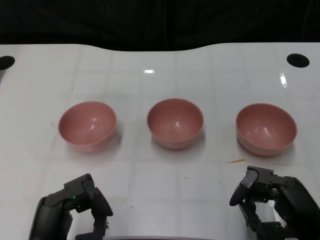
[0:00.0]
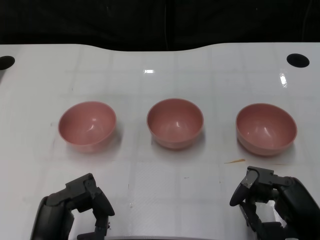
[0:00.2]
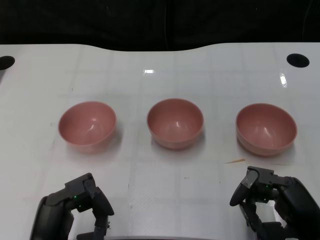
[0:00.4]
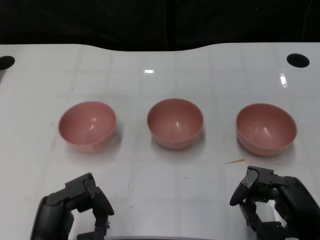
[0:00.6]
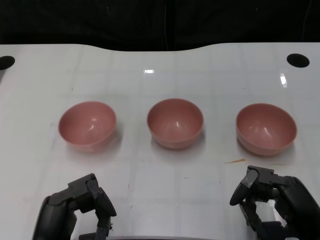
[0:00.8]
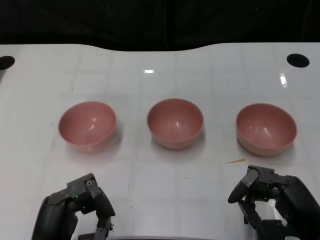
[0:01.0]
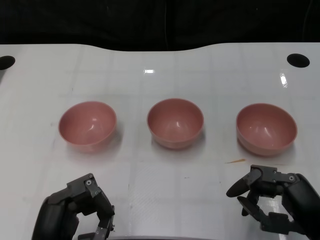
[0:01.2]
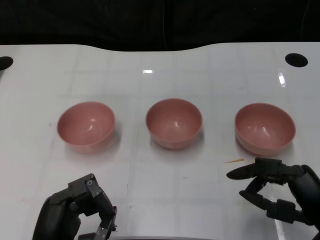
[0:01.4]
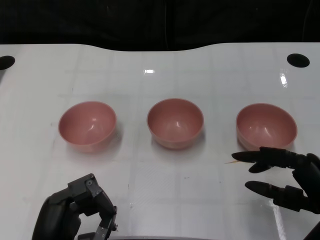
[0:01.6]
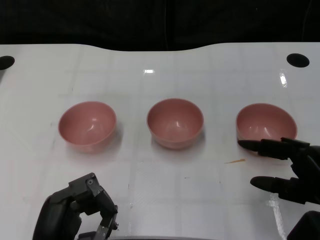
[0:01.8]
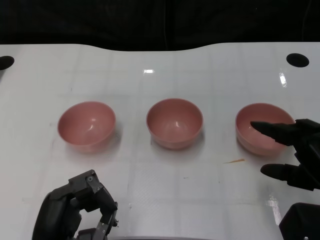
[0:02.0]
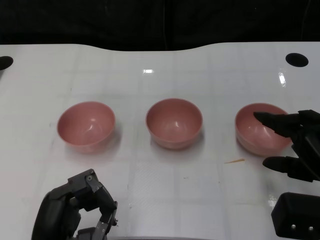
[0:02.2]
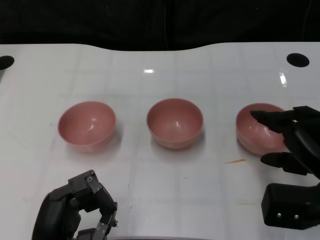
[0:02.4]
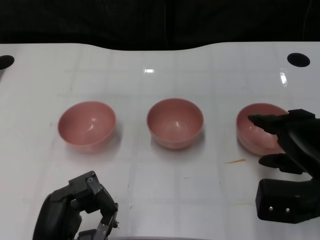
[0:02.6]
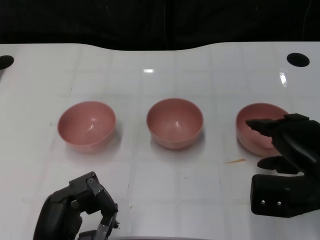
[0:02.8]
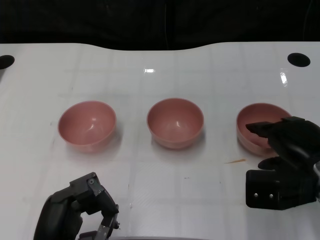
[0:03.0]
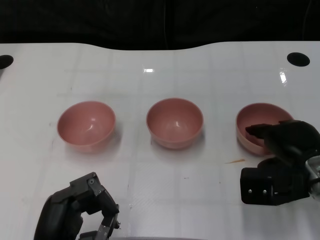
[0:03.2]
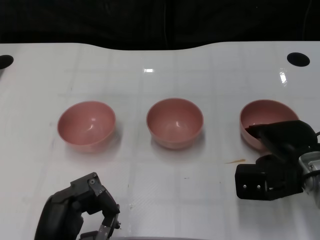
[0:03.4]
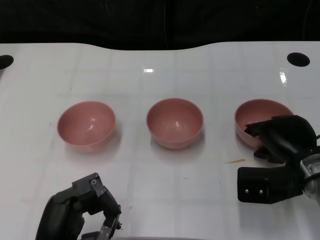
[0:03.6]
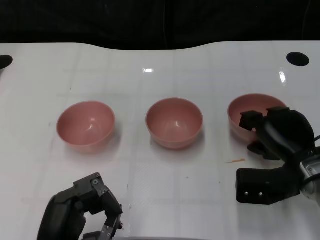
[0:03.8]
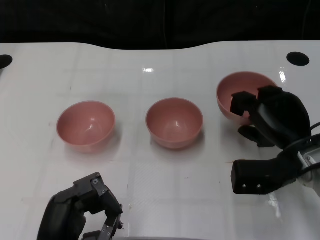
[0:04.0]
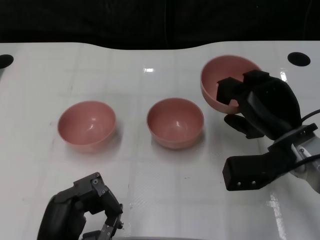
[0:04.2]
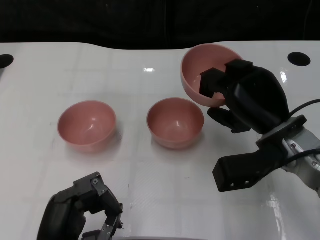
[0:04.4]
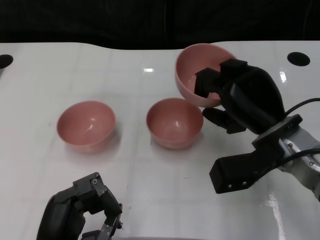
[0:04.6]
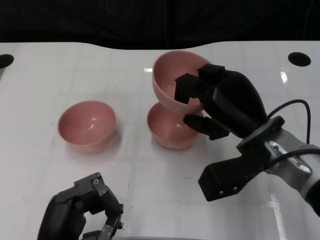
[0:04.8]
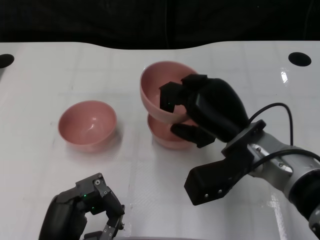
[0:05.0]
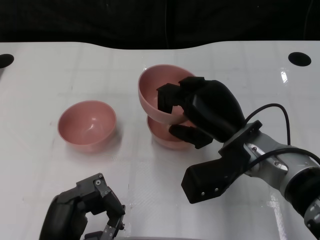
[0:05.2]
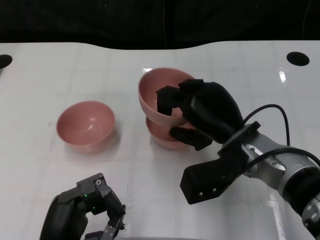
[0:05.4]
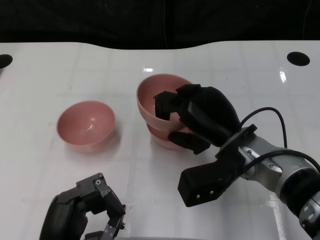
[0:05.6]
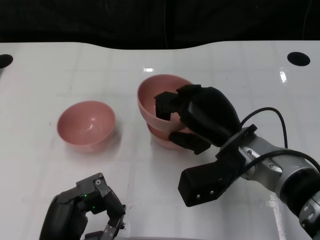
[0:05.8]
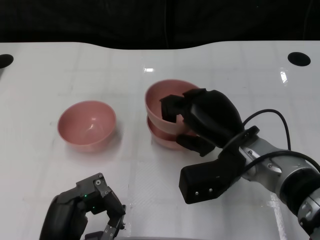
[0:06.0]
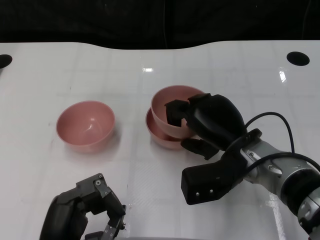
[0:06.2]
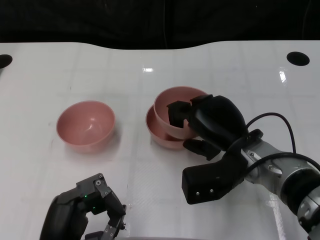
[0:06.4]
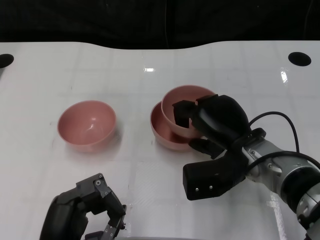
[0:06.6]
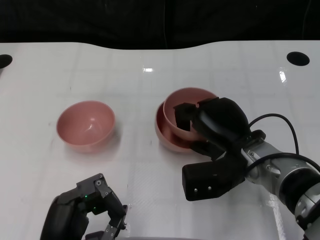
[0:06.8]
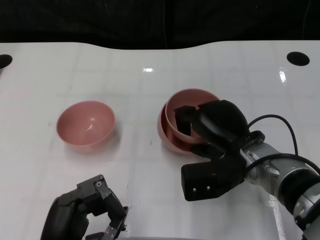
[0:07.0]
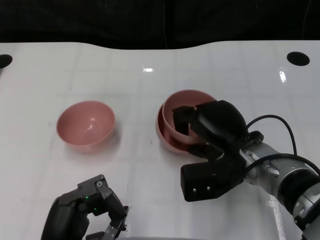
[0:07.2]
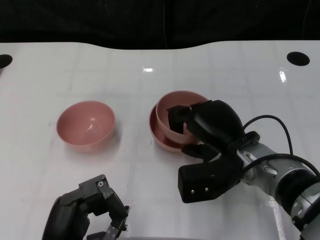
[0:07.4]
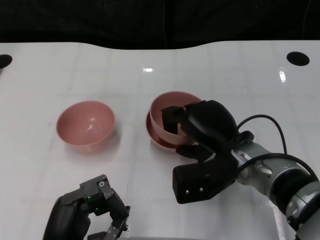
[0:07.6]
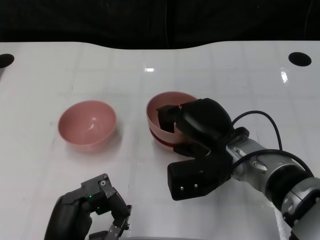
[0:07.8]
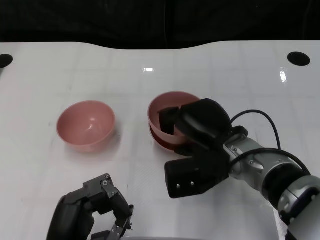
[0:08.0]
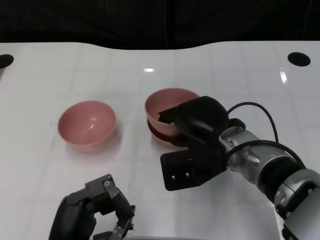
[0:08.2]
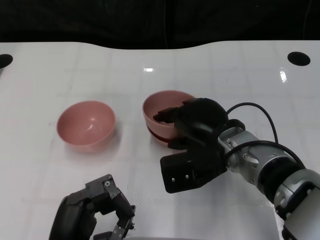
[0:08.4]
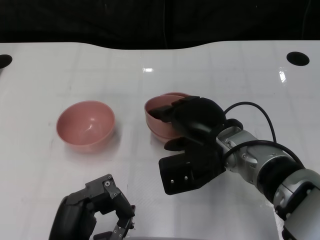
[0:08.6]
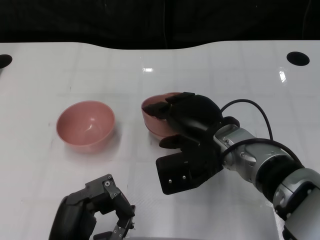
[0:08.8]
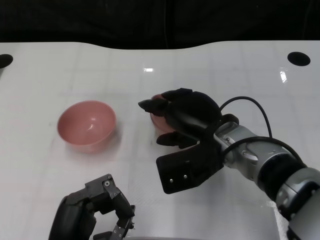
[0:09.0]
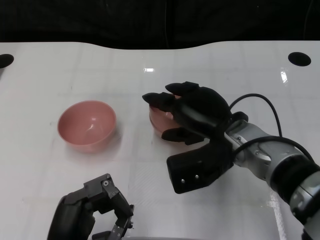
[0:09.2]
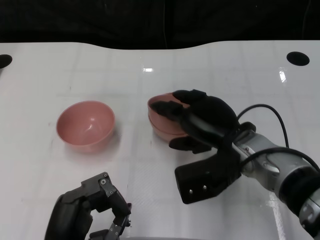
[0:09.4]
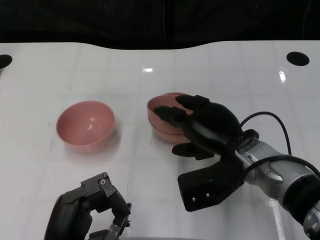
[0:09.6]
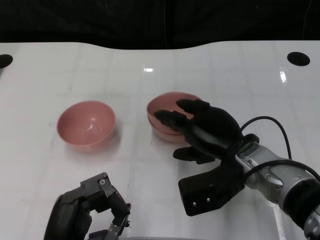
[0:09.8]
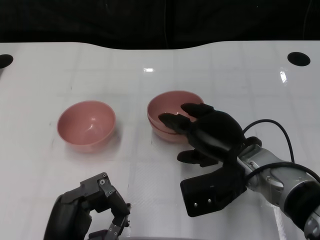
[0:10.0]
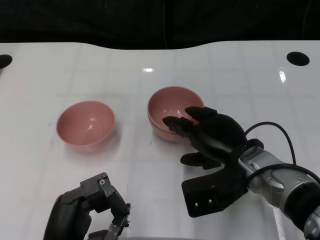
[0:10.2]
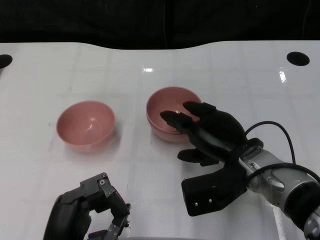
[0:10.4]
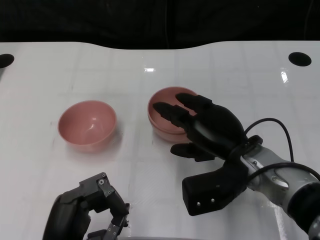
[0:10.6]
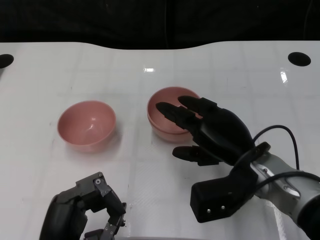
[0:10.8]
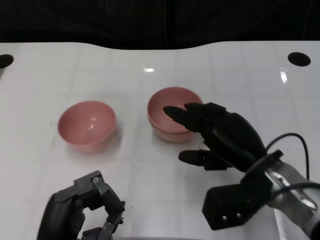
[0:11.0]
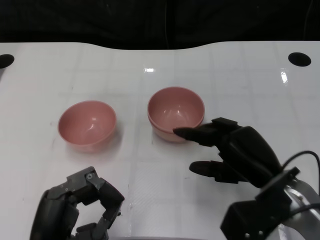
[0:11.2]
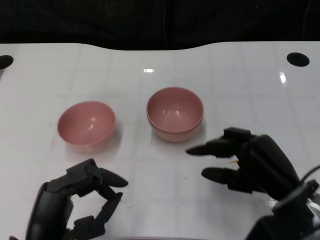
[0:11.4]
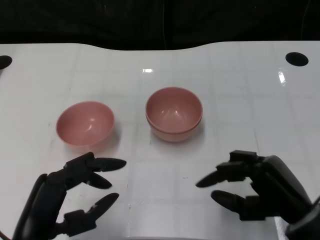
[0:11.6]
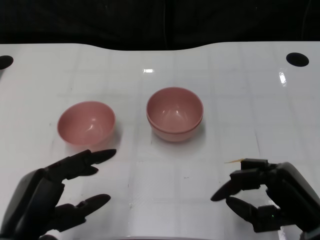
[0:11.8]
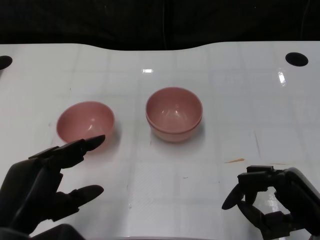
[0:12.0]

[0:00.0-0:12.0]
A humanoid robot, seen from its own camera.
Task of the whole recording: Pick up the bowl on one side of the table and place it on top of the middle bowl, then pick up the bowl on the other side of the table and place it on top of the middle bowls.
Step, 0:01.0 to 0:03.8: Grasp the bowl on the right with the right gripper.
Step, 0:04.0 to 0:11.0: Place the bowl on the right onto the bowl in the middle with right gripper.
0:01.6 to 0:03.0: The right hand heads forward, covering some 10 cm.
0:03.0 to 0:04.4: The right hand shifts some 5 cm to the left.
0:04.4 to 0:06.0: The right hand travels to the left by approximately 5 cm.
0:06.0 to 0:07.6: The hands stay close to where they were, moving slightly.
0:07.6 to 0:09.0: There are only small adjustments of the hands.
0:09.0 to 0:10.4: The right hand shifts by approximately 5 cm.
0:10.4 to 0:12.0: The right hand moves to the right and backward, some 15 cm. The left hand goes about 5 cm upward.

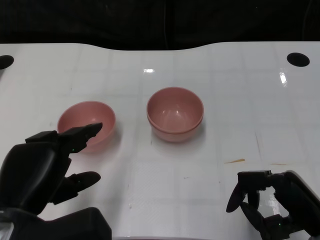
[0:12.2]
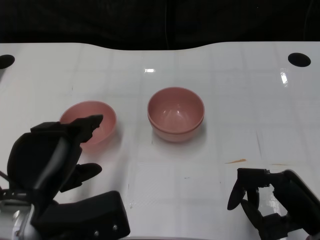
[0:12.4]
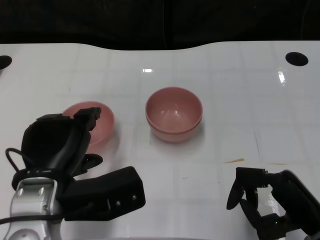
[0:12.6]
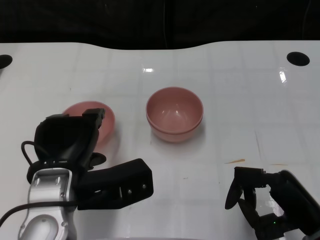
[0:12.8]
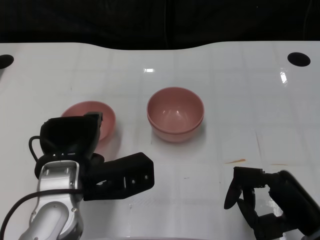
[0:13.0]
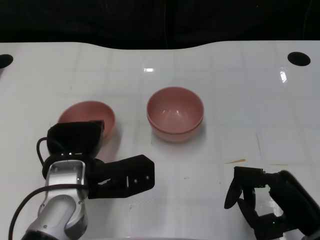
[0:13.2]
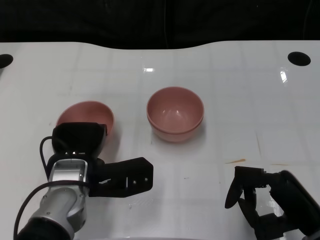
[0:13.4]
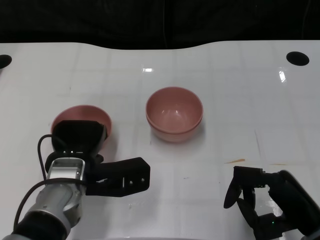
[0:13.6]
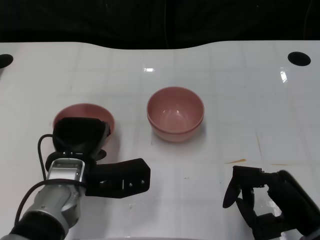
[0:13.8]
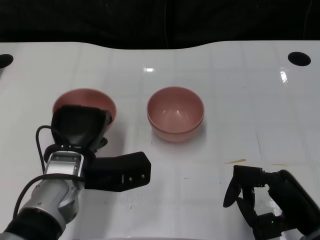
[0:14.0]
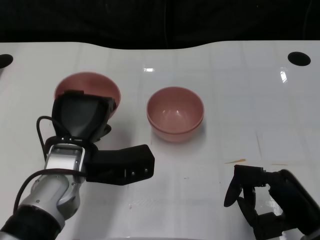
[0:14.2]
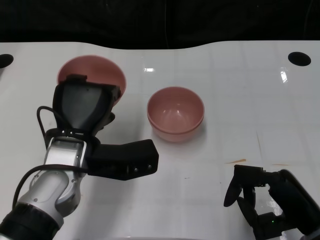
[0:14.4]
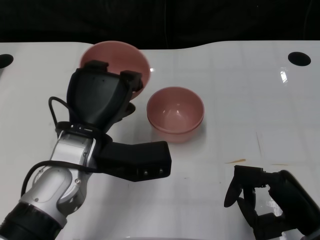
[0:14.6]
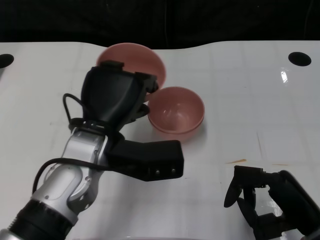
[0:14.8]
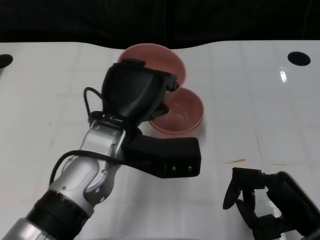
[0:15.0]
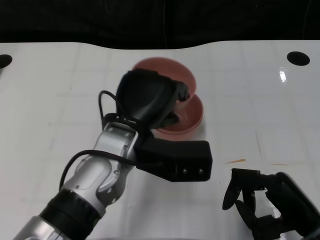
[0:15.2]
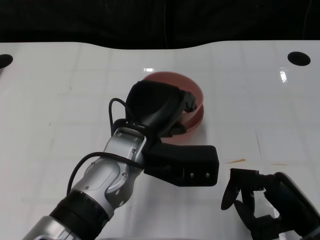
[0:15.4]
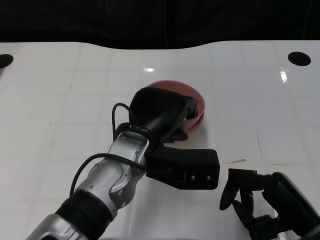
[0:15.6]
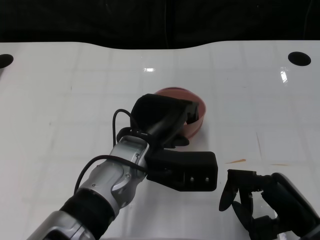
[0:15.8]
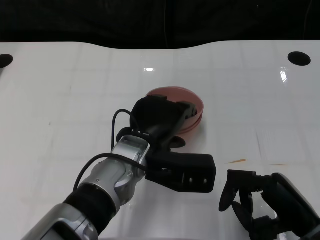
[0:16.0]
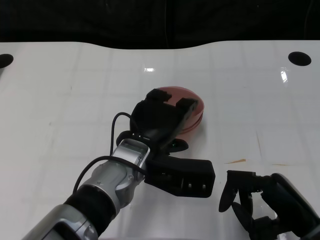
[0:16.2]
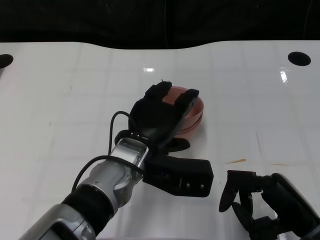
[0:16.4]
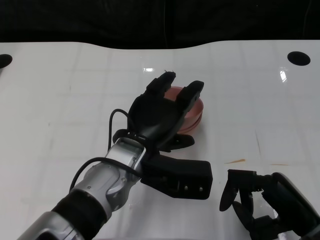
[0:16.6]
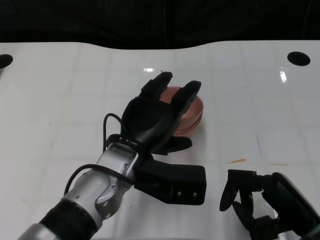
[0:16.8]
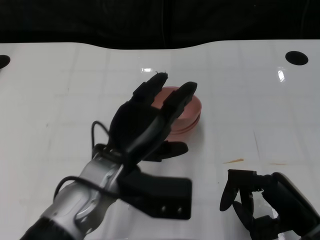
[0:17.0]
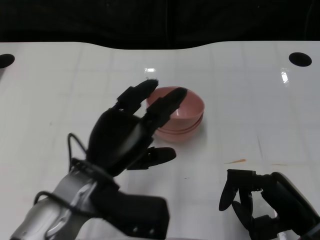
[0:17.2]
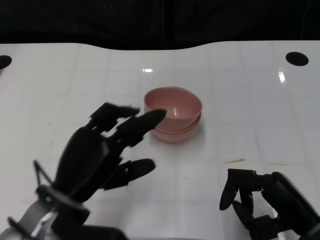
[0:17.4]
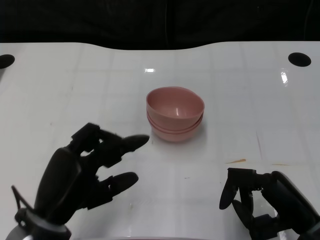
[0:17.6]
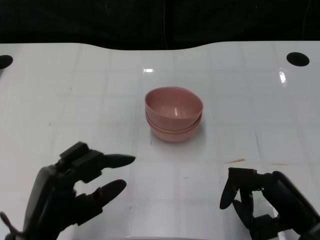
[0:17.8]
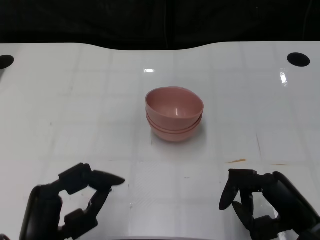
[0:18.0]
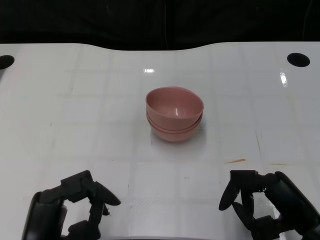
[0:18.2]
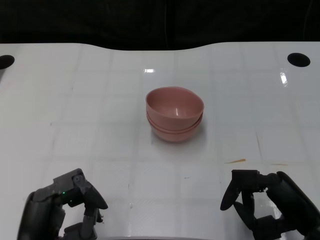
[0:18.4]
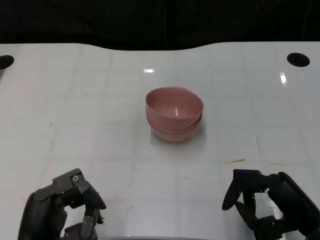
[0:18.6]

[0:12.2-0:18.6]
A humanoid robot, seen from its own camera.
Task of the whole recording: Pick up the bowl on one side of the table and place it on top of the middle bowl, then pick up the bowl on the other side of the table and place it on top of the middle bowls.
Step, 0:12.2 to 0:13.8: Grasp the bowl on the left with the left gripper.
Step, 0:14.0 to 0:17.2: Place the bowl on the left onto the bowl in the middle with left gripper.
0:12.2 to 0:13.8: The left hand goes about 15 cm forward, downward and to the right.
0:13.8 to 0:15.4: The left hand heads to the right and upward, covering some 10 cm.
0:17.0 to 0:18.6: The left hand goes roughly 20 cm backward, to the left and downward.

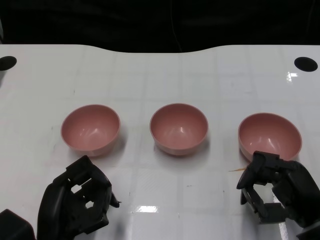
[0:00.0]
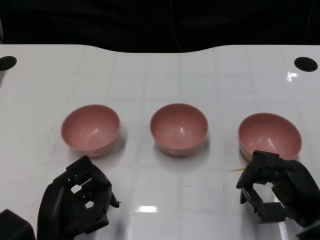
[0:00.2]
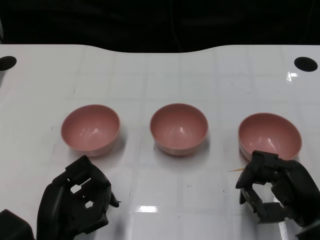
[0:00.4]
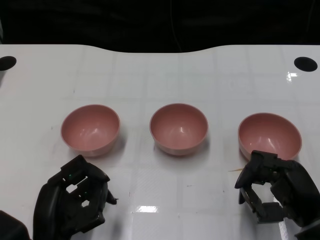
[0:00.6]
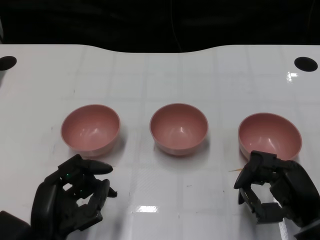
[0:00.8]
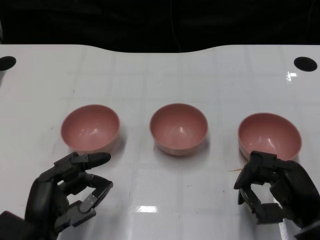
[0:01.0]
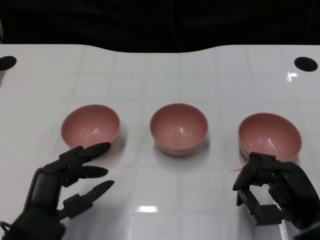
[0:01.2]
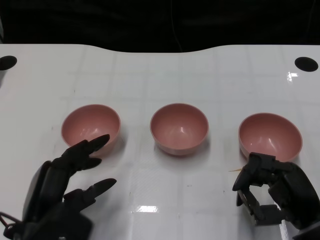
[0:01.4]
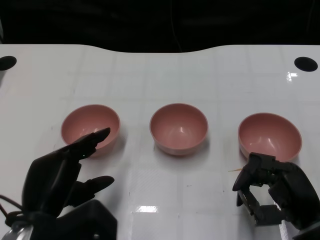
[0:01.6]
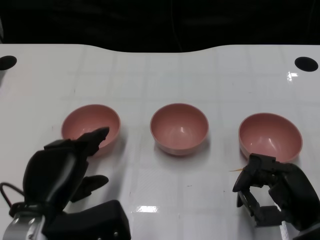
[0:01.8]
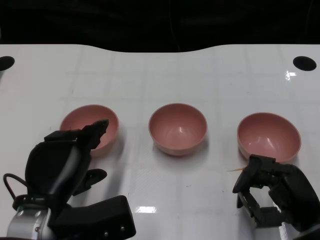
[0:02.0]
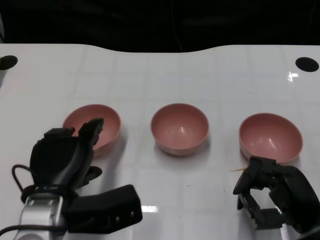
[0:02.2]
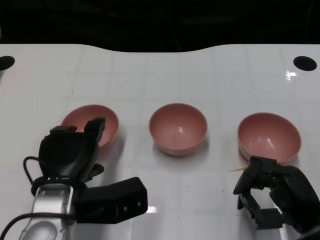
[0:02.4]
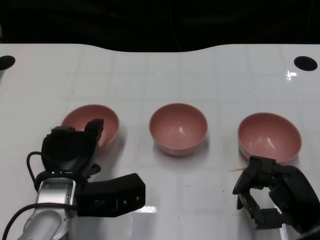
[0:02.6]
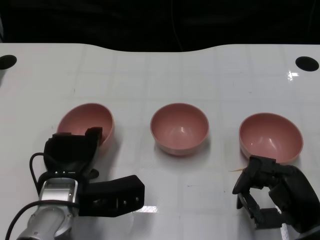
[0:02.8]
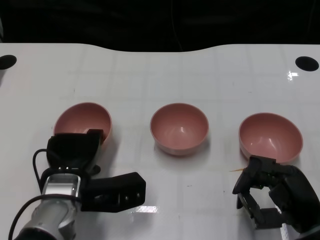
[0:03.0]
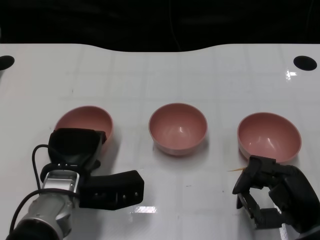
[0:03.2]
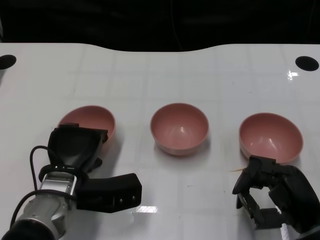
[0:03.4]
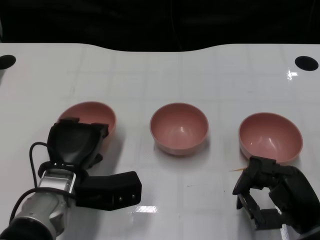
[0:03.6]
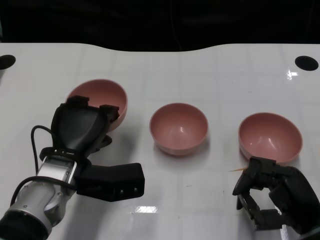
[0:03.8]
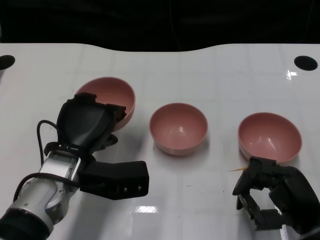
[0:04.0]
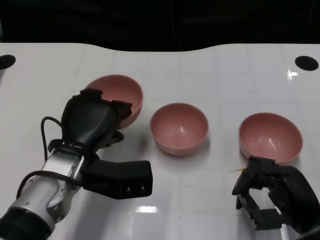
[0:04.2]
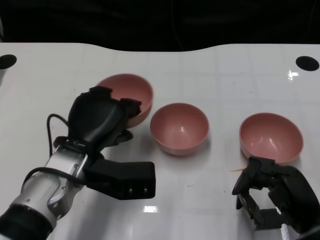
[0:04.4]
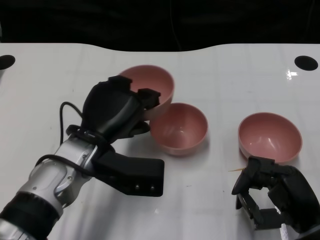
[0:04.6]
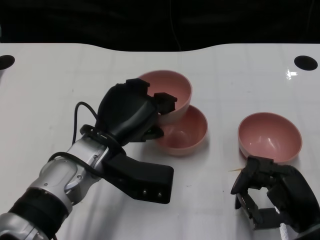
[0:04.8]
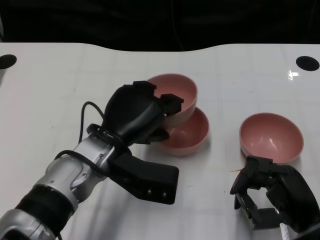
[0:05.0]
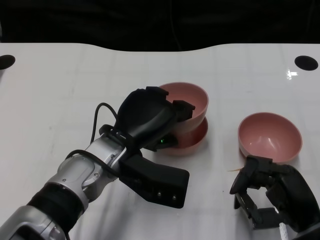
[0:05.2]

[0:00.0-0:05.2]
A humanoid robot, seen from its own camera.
Task of the whole recording: Pick up the bowl on one side of the table and place it on top of the middle bowl, then pick up the bowl on the other side of the table and place it on top of the middle bowls.
Step, 0:00.8 to 0:03.4: Grasp the bowl on the left with the left gripper.
0:01.8 to 0:03.4: The left hand moves forward, about 10 cm.
0:03.4 to 0:05.2: The left hand moves to the right and upward, roughly 10 cm.
